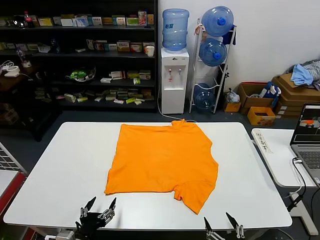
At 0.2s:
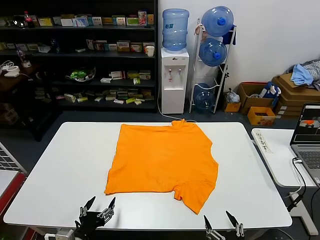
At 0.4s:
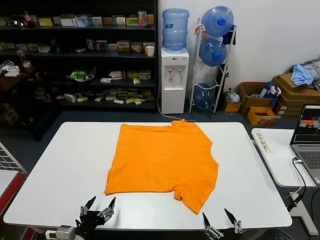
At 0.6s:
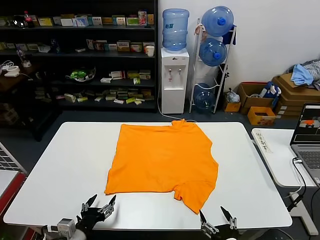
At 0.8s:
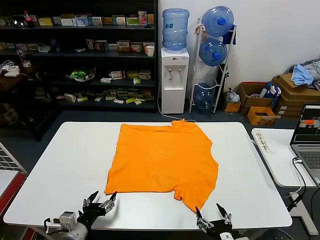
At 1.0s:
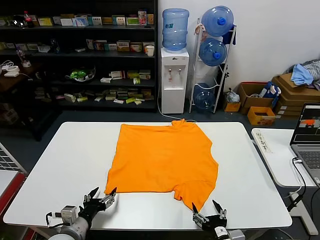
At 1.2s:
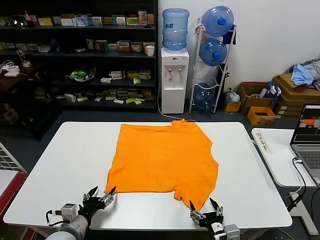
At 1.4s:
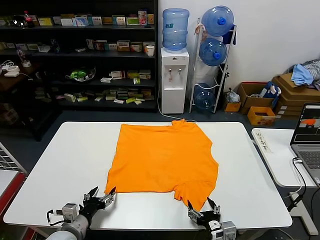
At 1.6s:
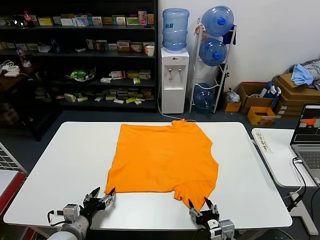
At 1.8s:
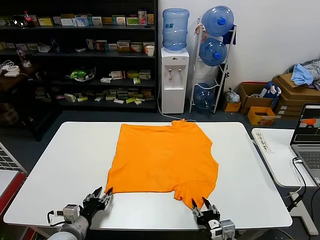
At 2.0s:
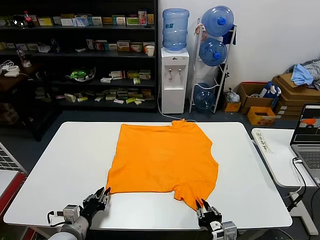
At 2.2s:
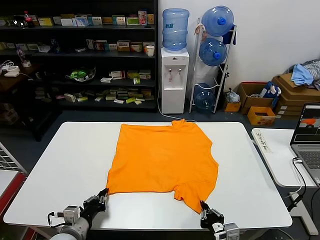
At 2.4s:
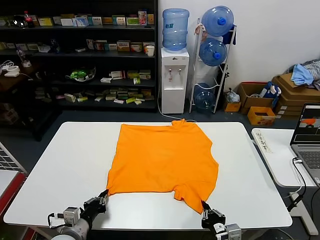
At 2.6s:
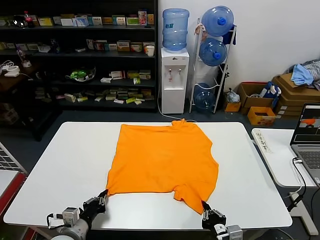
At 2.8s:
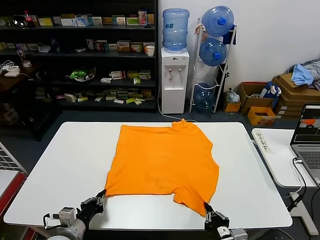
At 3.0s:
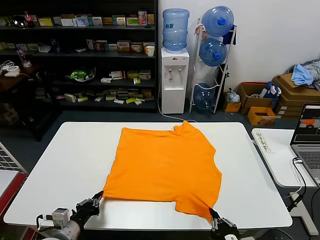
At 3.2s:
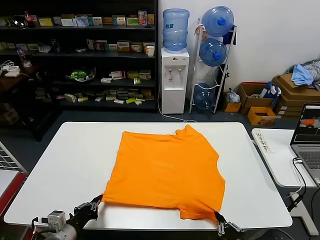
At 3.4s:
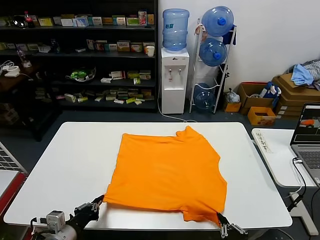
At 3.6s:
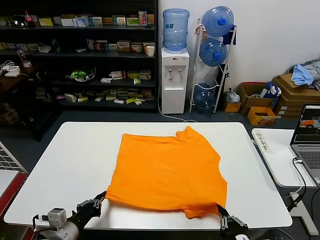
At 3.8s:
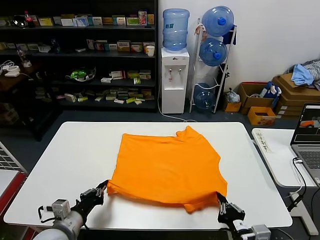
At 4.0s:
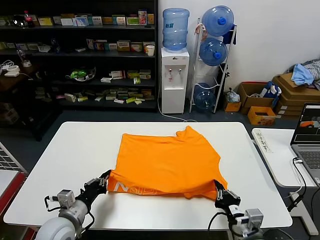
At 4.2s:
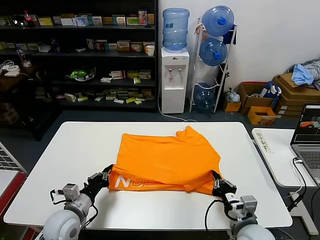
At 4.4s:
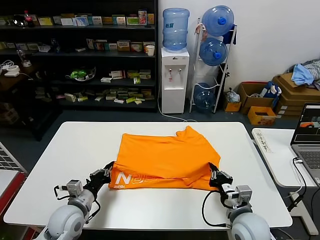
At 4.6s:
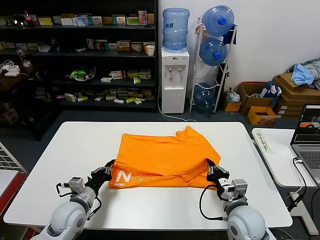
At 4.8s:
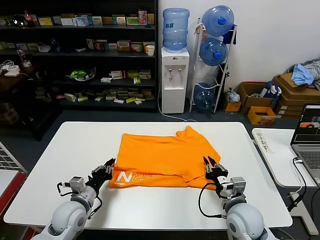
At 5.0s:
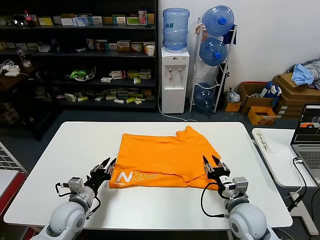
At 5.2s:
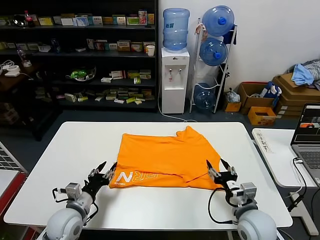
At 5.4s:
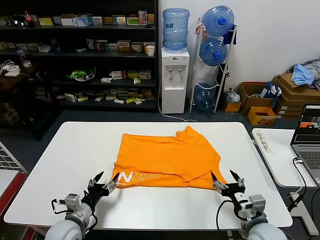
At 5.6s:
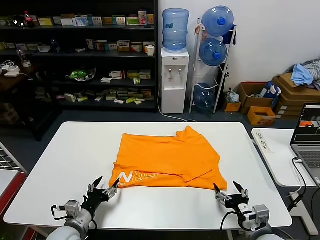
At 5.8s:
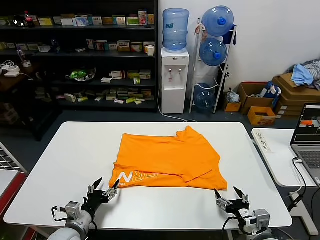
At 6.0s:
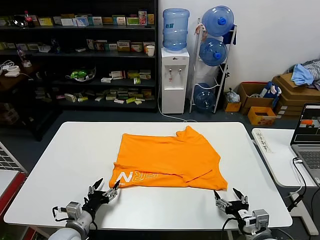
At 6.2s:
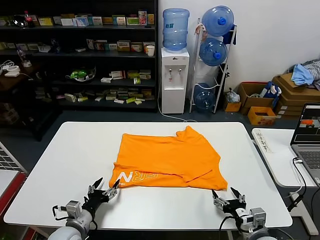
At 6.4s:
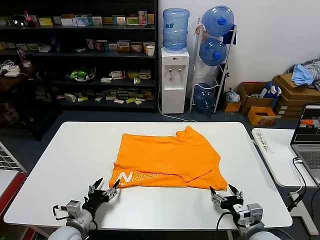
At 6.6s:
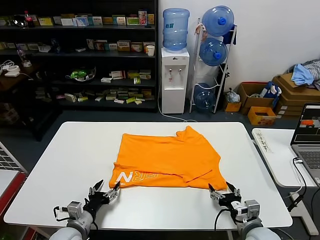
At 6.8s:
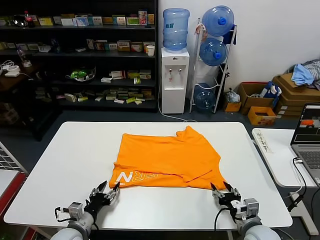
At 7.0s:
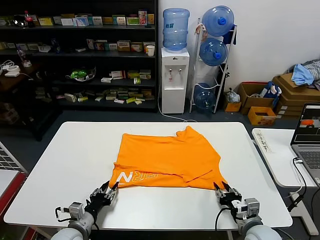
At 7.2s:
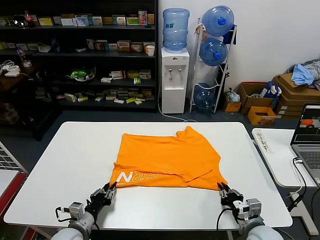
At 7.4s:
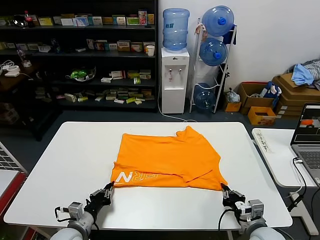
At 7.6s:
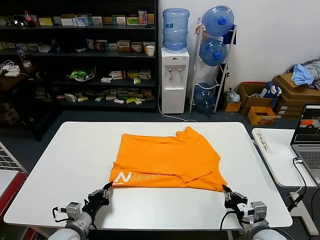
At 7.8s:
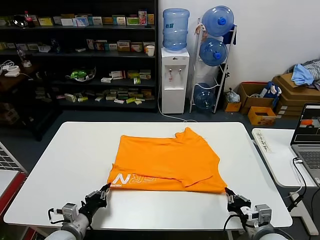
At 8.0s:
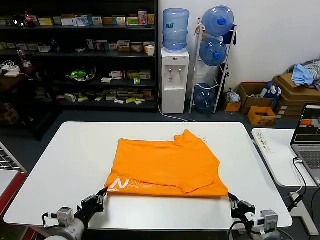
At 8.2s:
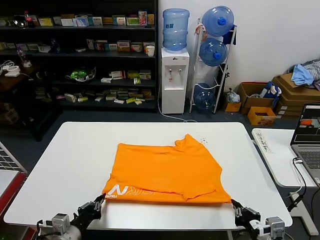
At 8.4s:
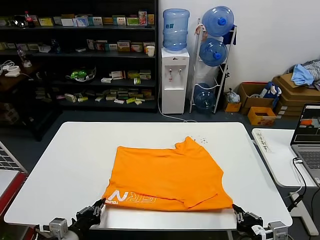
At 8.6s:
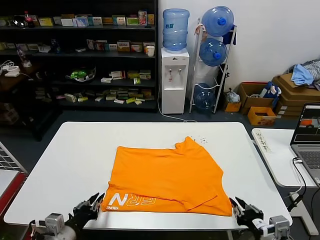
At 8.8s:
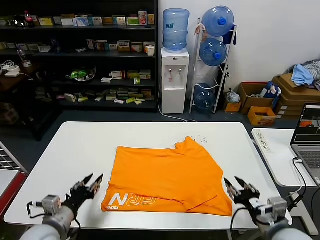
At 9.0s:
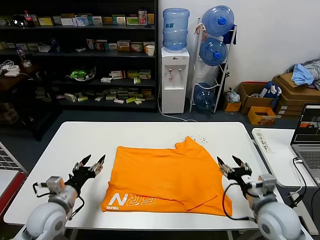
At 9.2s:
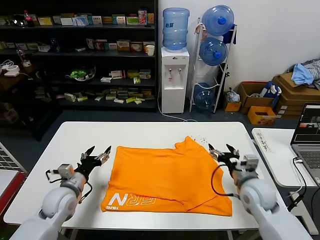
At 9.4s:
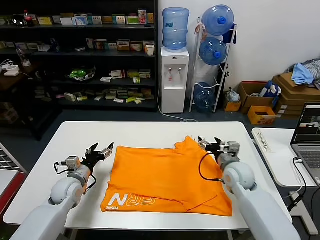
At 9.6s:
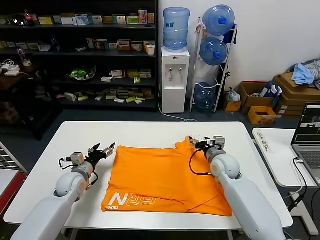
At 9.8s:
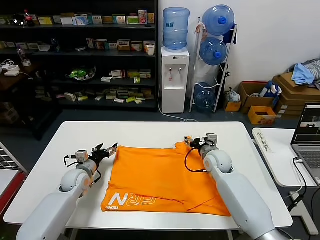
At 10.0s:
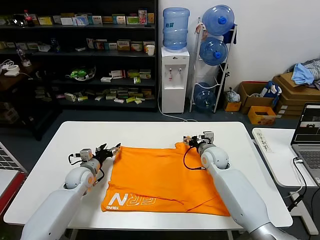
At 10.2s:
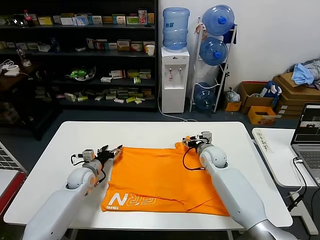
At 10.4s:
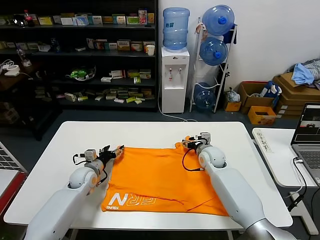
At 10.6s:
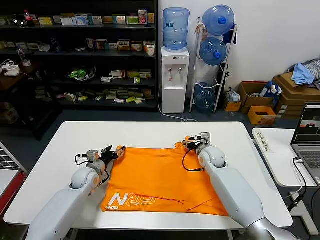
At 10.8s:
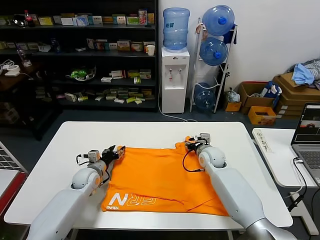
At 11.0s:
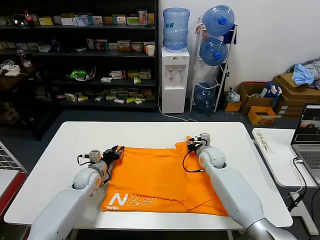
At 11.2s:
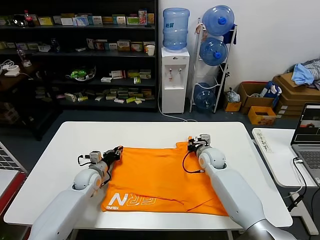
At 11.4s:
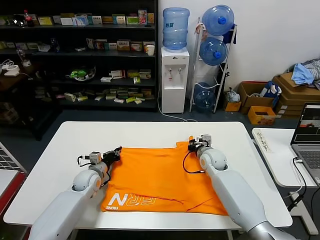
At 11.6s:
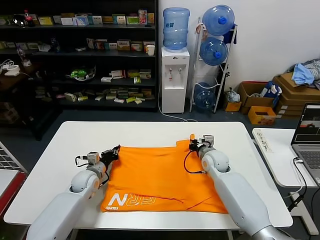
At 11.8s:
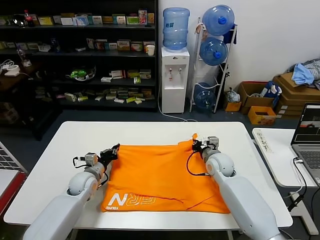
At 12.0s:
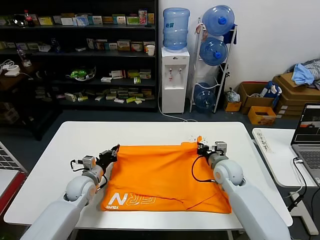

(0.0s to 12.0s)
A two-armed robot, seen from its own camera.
Task of the whole recording: fold and organize the clothes.
Step, 0.0s - 2.8s: use both grippers simultaneously to clamp the lower edge of the clothing fabric.
Step, 3.0s - 4.8s: use both grippers to drag the lower edge of the fabric forward and fold it over the upper edge.
Step, 5.0s - 8.4s: Drag the clothes downward with both gripper.
Step, 8.6s - 11.4s: use both grippers simultaneously to clamp the upper edge of the clothing fabric.
1.6s - 3.0s: The left gripper closes; the right gripper goes approximately 10 cm backward and upward, and closes its fingers.
3.0s - 4.4s: The right gripper heads forward, covering approximately 15 cm, while the left gripper heads forward, covering roughly 10 cm.
4.4s - 6.0s: The left gripper moves backward, some 5 cm, and opens up; the right gripper shifts roughly 10 cm backward and to the right, and opens.
6.0s - 7.6s: The right gripper closes. Meanwhile the left gripper closes its fingers.
7.6s - 9.0s: The right gripper shifts about 10 cm upward and forward, and opens up, while the left gripper travels upward by roughly 10 cm, and opens its fingers.
9.0s - 10.4s: The right gripper travels forward and to the left by some 25 cm. Meanwhile the left gripper heads forward and downward, covering roughly 20 cm.
10.4s - 12.0s: The right gripper shifts about 10 cm backward, and closes up. The left gripper closes its fingers.

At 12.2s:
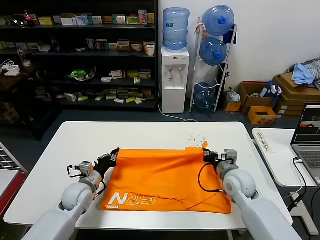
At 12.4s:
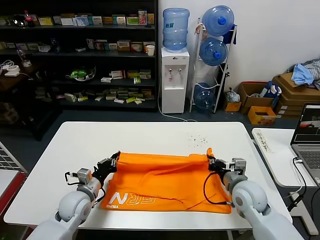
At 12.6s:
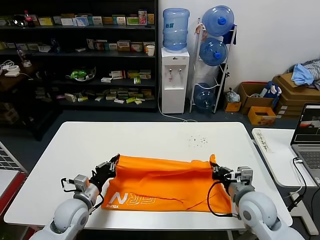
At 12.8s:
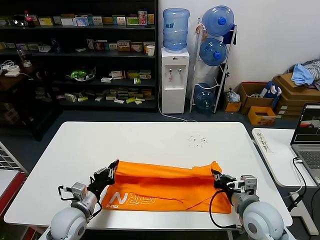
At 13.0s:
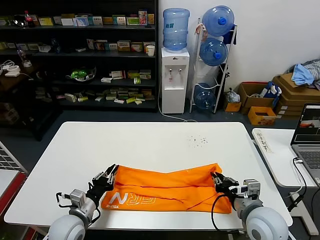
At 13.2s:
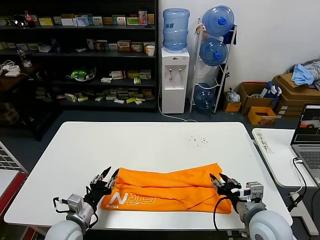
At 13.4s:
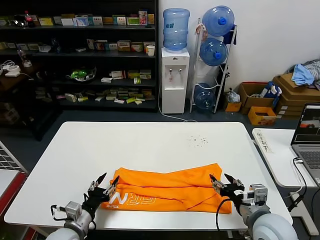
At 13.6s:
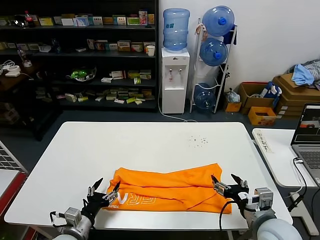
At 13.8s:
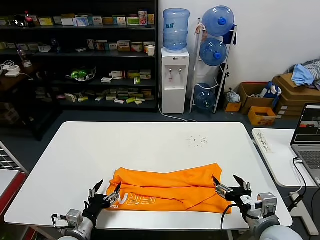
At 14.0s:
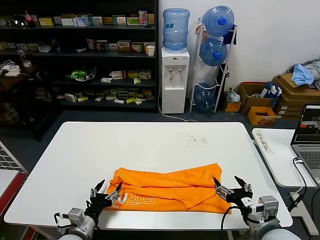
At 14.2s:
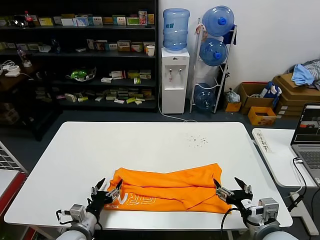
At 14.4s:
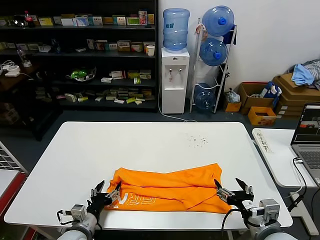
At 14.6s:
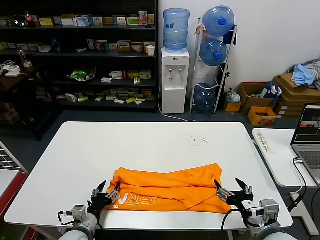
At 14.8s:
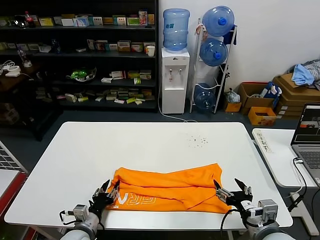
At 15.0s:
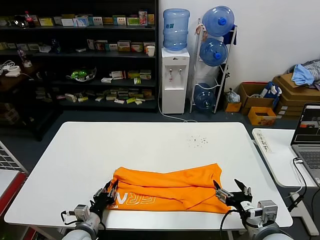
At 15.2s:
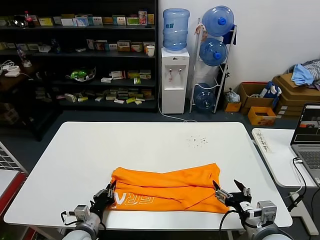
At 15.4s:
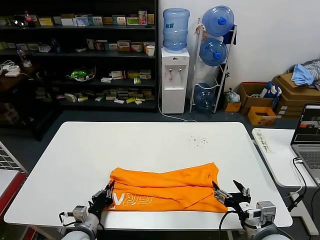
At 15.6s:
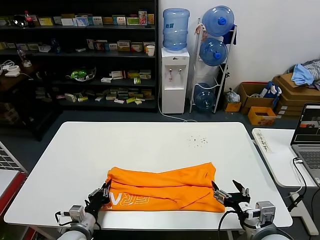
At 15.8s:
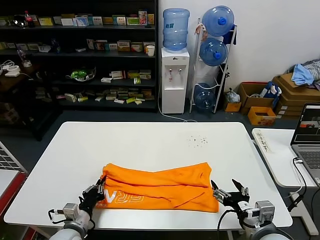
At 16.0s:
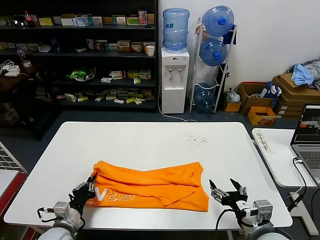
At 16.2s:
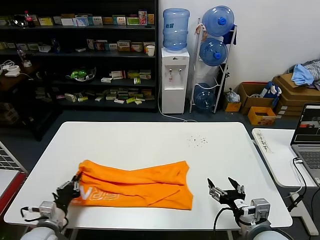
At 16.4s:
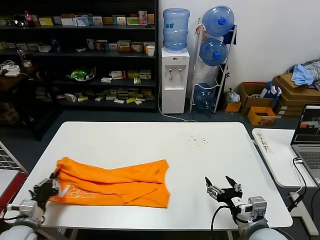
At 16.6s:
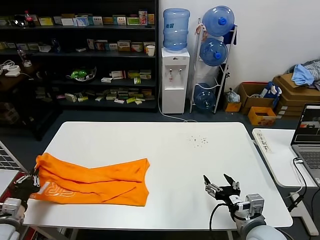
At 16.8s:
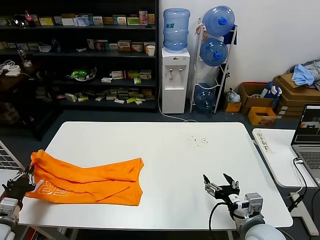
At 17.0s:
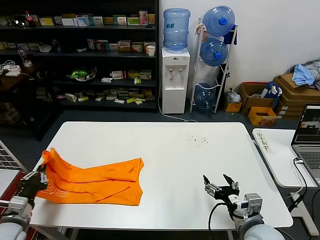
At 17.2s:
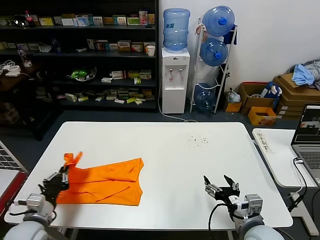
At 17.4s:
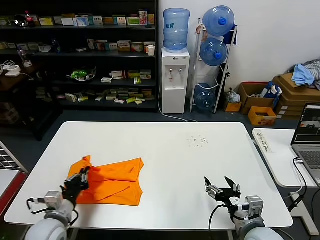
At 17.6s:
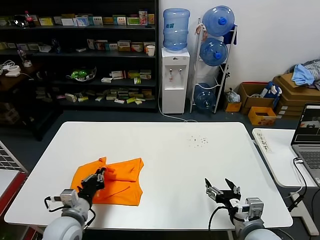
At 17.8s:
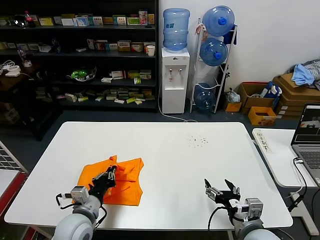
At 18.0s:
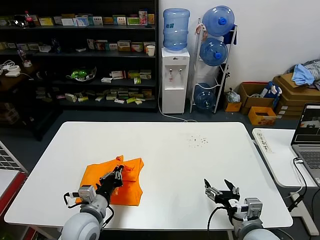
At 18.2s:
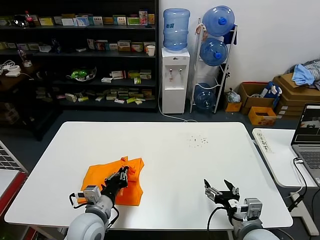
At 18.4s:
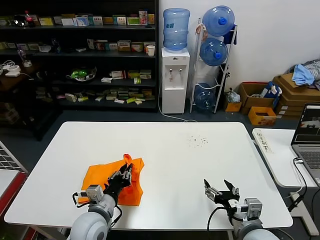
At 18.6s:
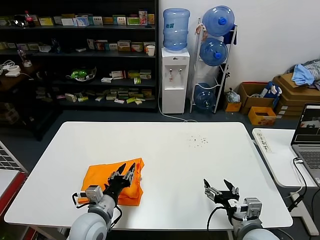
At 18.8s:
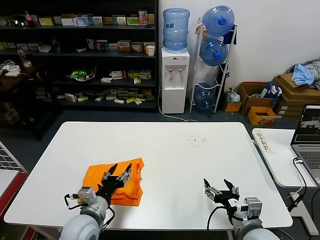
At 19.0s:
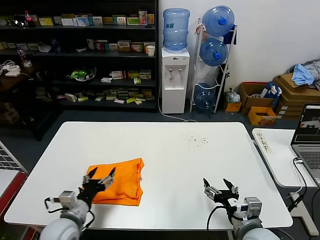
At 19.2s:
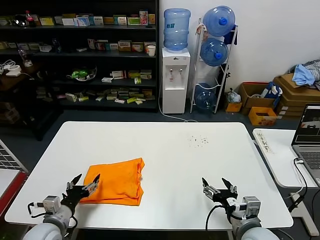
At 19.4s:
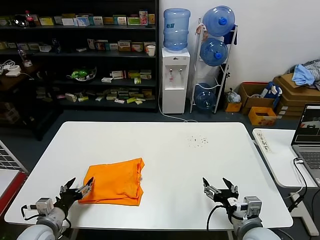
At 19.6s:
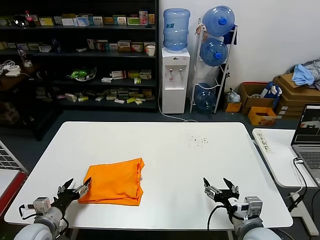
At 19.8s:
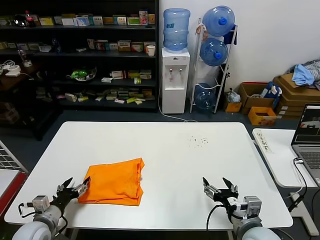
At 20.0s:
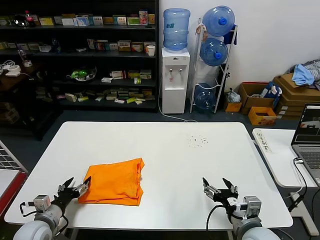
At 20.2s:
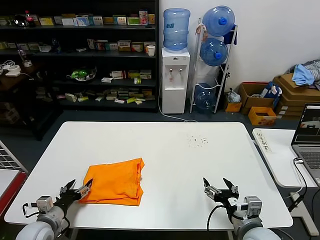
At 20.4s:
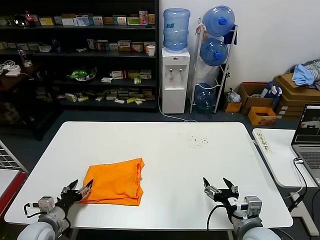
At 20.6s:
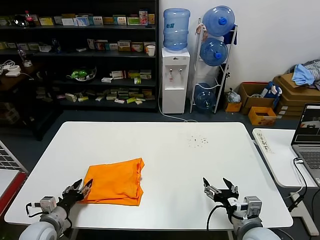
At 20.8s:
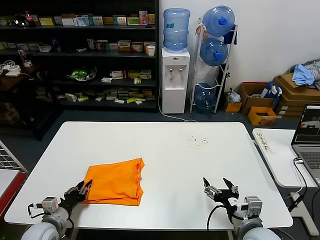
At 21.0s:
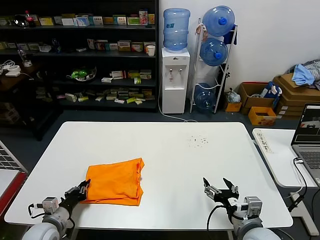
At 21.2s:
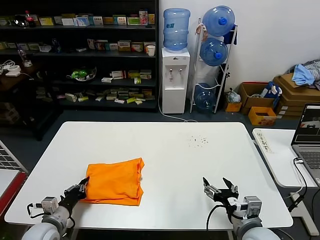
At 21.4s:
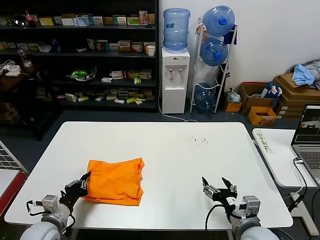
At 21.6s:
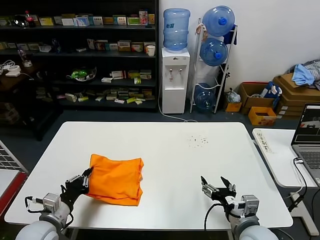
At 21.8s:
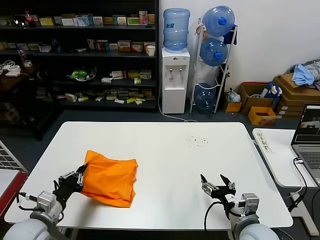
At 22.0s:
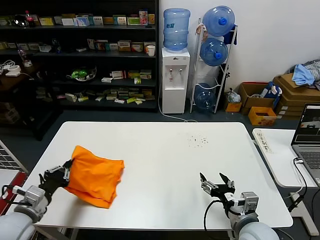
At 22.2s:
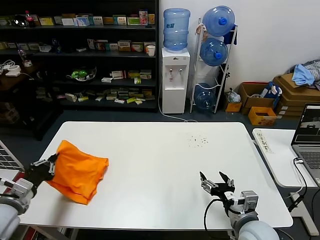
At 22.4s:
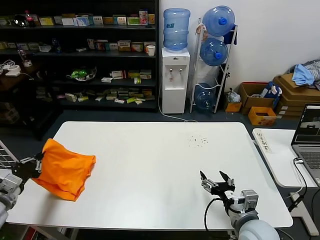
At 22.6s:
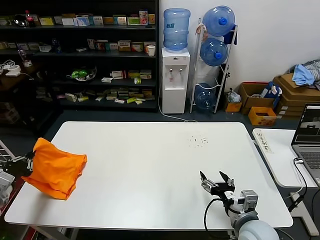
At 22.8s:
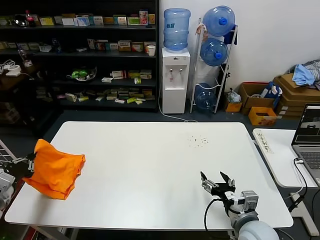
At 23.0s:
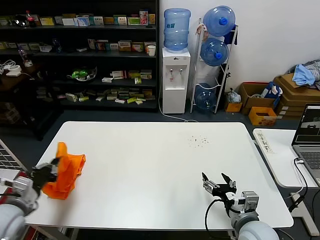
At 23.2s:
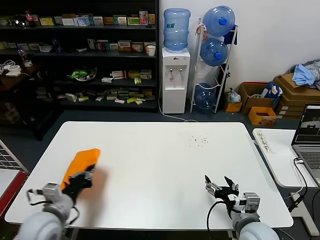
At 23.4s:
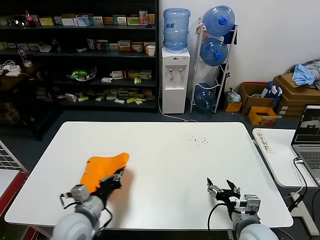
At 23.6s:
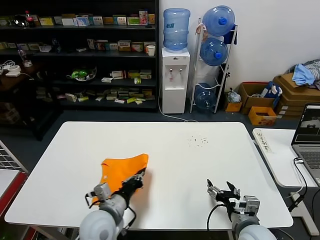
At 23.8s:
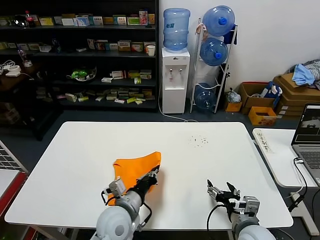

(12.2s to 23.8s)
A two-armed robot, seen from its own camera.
Task of the whole recording: fold and organize the clothes.
Step, 12.2s - 13.2s: use both grippers to drag the upper edge of the fabric backward and fold it over the lower edge.
Step, 13.4s - 15.4s: use the left gripper to clamp the left edge of the fabric.
Step, 15.6s - 18.6s: use the left gripper to drag the left edge of the fabric to the left and folds it over the right edge.
12.2s - 13.6s: Both grippers travel together backward, some 15 cm. The right gripper opens its fingers. Meanwhile the left gripper opens up.
13.6s - 15.0s: The left gripper moves some 5 cm, and closes.
15.0s - 16.6s: The left gripper shifts roughly 20 cm to the left and upward, and closes up.
16.6s - 18.0s: The left gripper heads to the right, covering some 25 cm.
18.0s - 19.4s: The left gripper shifts about 15 cm to the left, and opens.
19.4s - 21.0s: The left gripper closes.
21.0s - 22.4s: The left gripper heads upward and to the left, covering about 15 cm.
22.4s - 23.8s: The left gripper moves to the right, roughly 30 cm.
